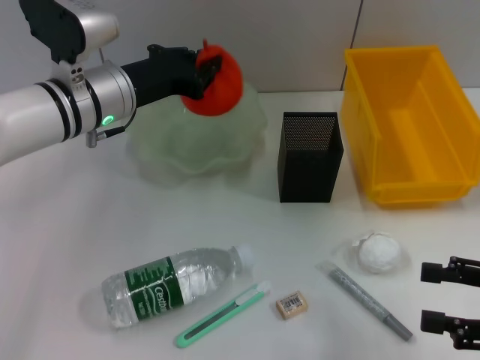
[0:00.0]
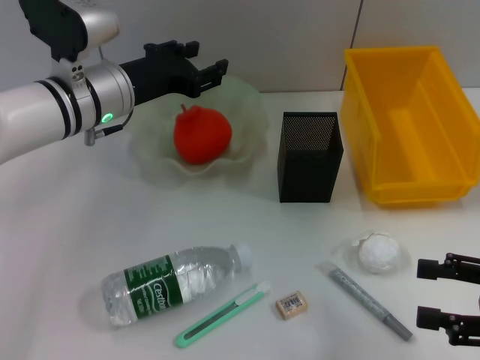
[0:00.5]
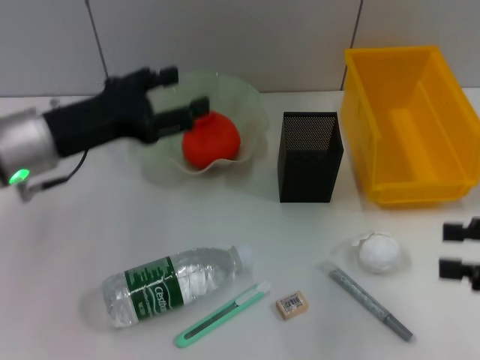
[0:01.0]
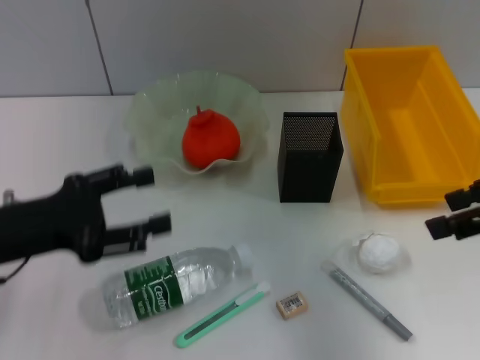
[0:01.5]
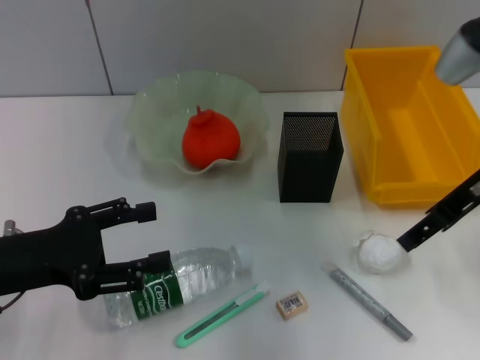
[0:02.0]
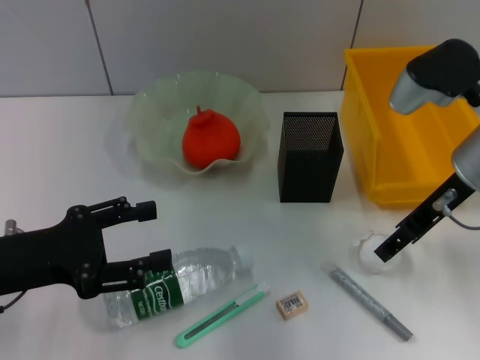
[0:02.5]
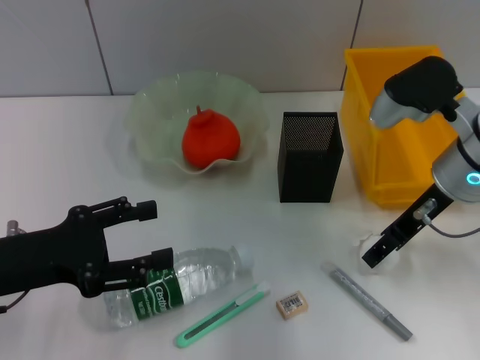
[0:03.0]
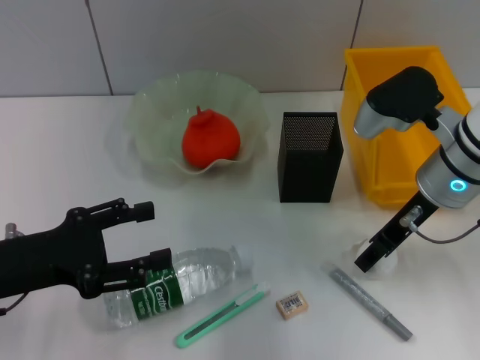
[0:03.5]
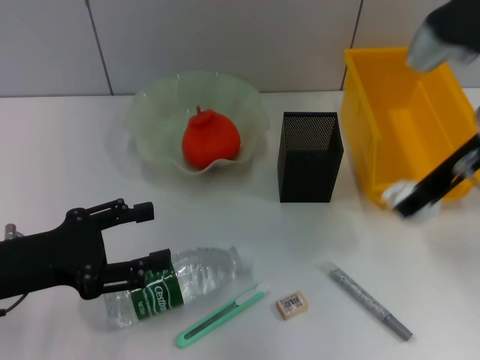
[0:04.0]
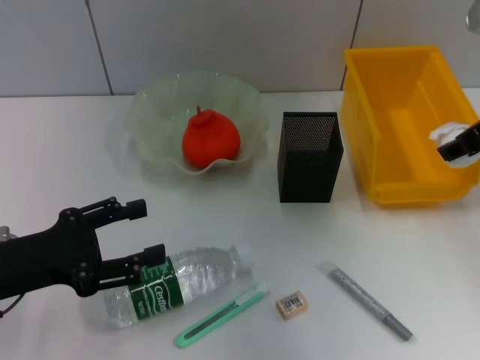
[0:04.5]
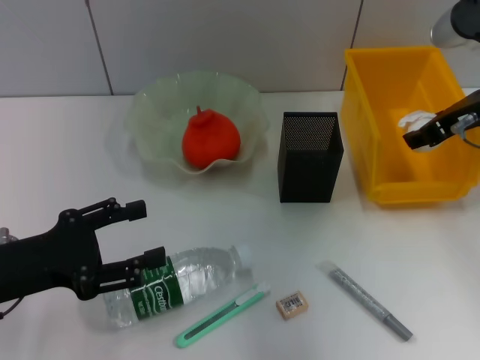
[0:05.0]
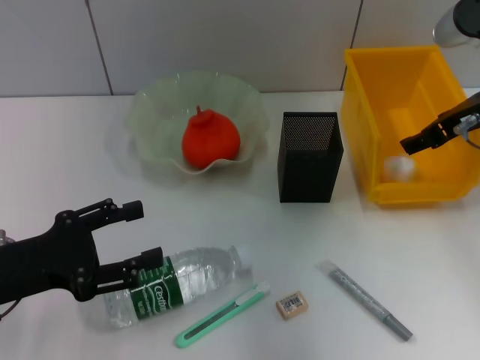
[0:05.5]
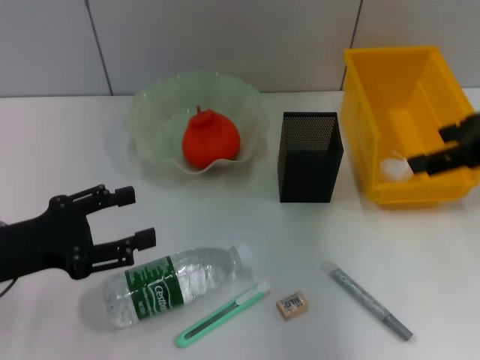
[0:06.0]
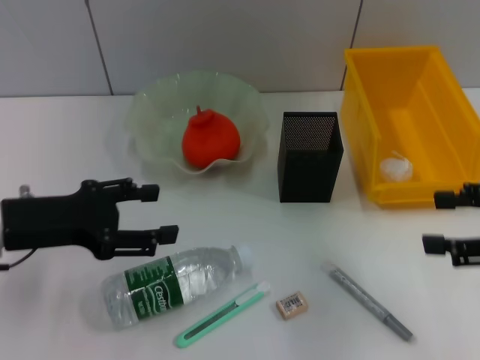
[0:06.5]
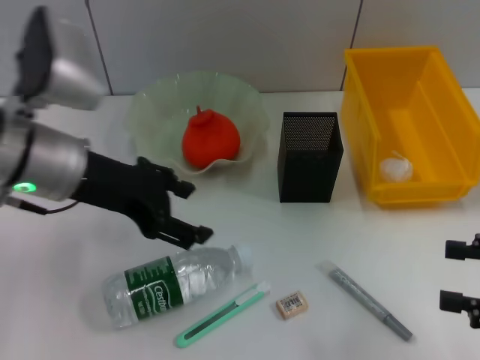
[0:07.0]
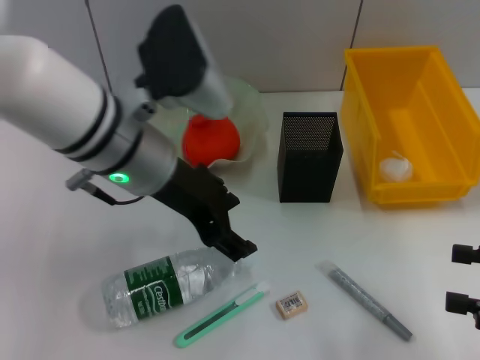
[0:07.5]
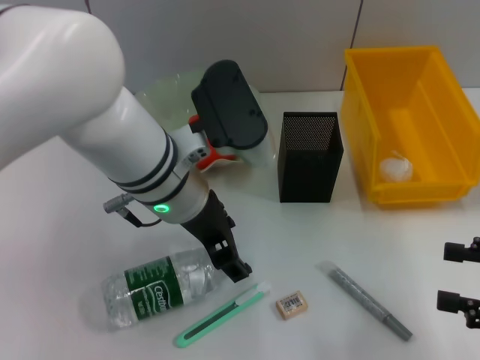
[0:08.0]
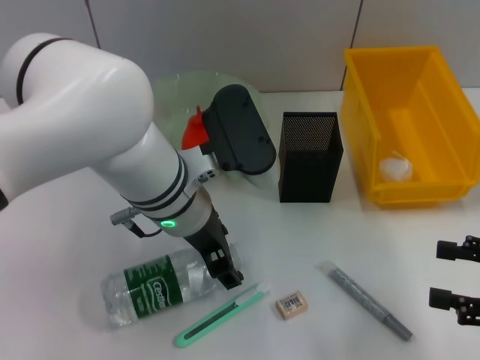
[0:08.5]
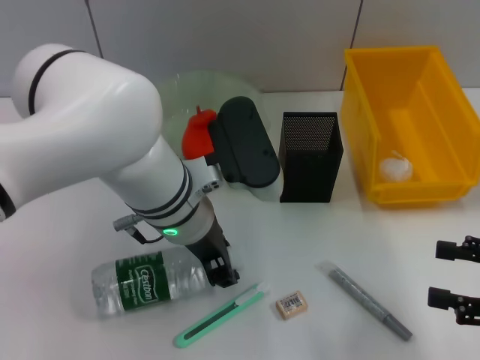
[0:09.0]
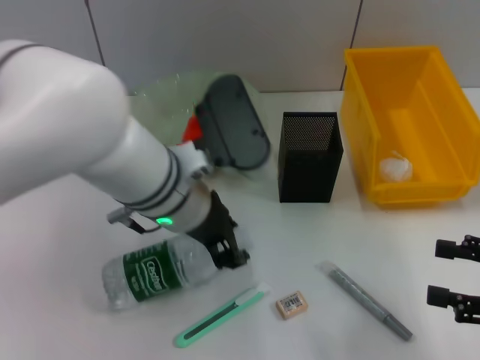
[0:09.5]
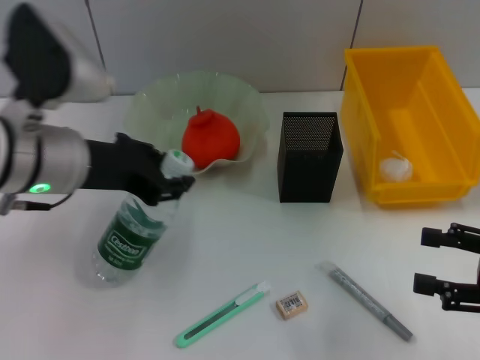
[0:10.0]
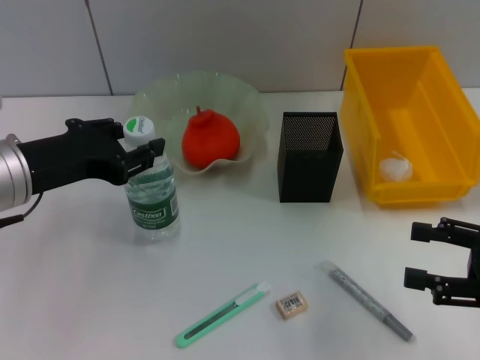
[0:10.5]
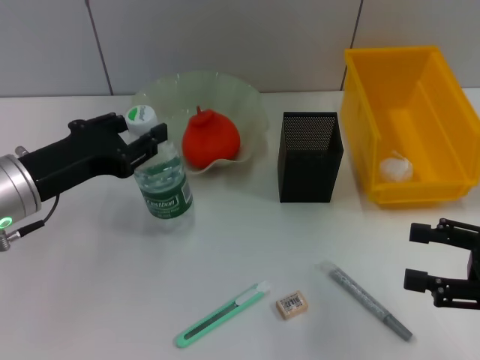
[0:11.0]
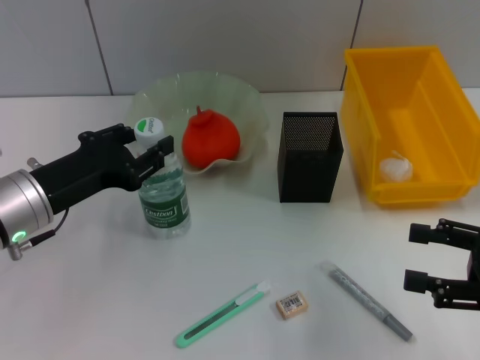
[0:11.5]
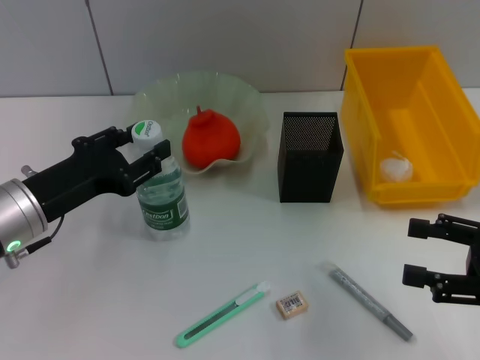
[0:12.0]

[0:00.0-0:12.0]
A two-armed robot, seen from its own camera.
Step, 0:00.5 to 0:03.5: Grab the paper ball with the right hand.
Step, 0:04.0 to 0:05.5: Place the paper ball into the trash can with the right hand.
Step, 0:06.0 to 0:09.0: Grab the water bottle with the left hand.
0:00.0 to 0:02.0: The left gripper moves backward and to the left, roughly 20 cm, and opens up; the right gripper is displaced forward, upward and to the left by some 20 cm.
0:02.0 to 0:04.0: The right gripper travels downward and back again, approximately 5 cm each way.
0:04.0 to 0:06.0: The right gripper moves to the right, some 5 cm, and opens up.
0:06.0 to 0:08.0: The left gripper shifts some 20 cm to the right; the right gripper moves downward, backward and to the right, approximately 20 cm.
0:08.0 to 0:10.0: The left gripper shifts some 10 cm to the left, and closes up.
0:10.0 to 0:12.0: The left gripper goes some 10 cm downward and to the left.

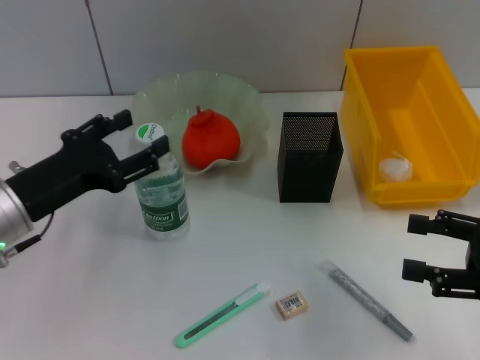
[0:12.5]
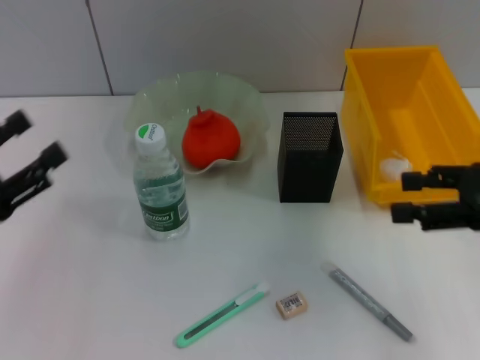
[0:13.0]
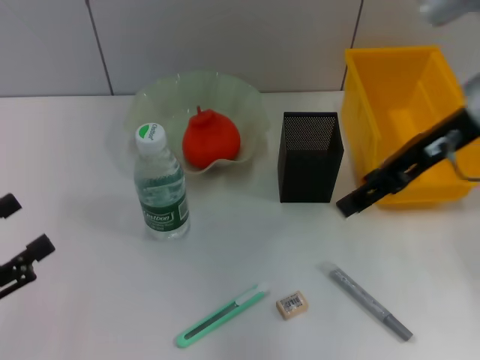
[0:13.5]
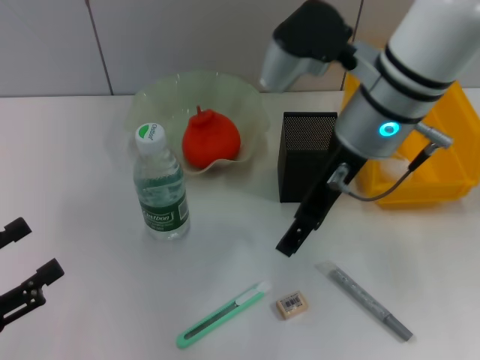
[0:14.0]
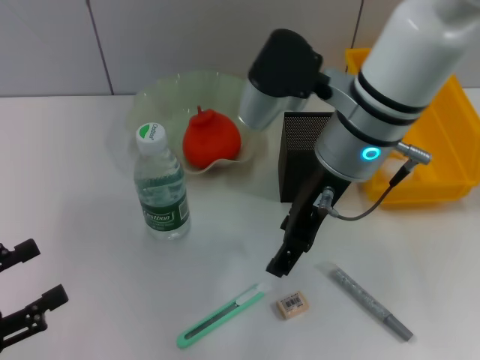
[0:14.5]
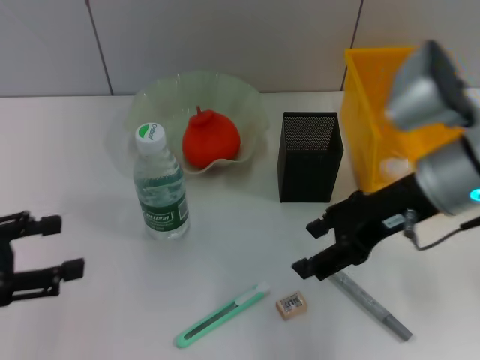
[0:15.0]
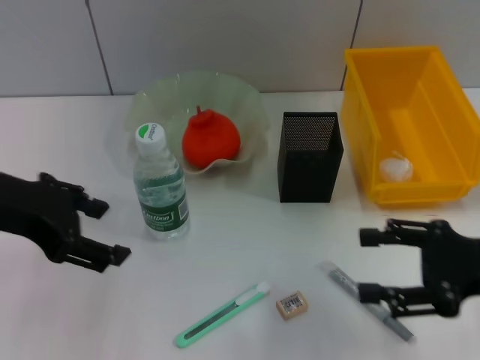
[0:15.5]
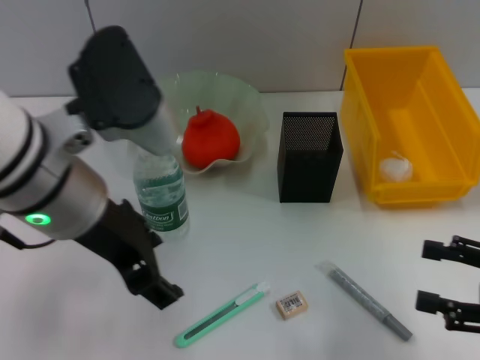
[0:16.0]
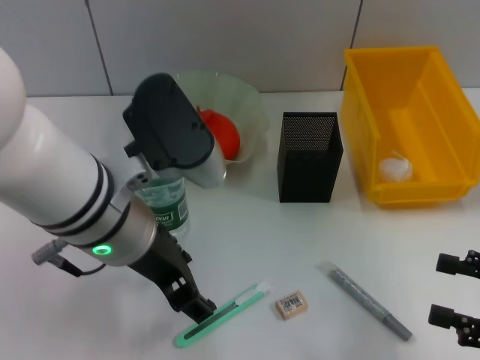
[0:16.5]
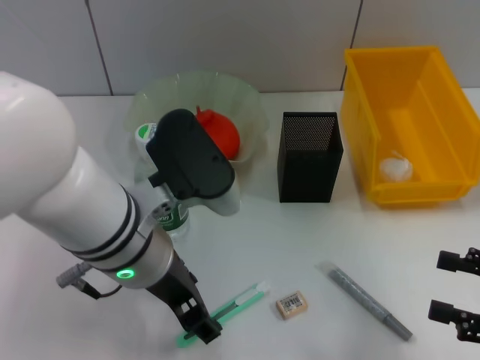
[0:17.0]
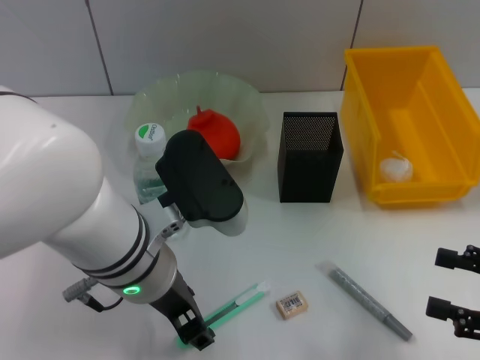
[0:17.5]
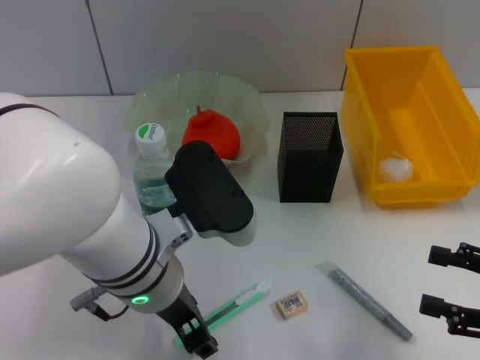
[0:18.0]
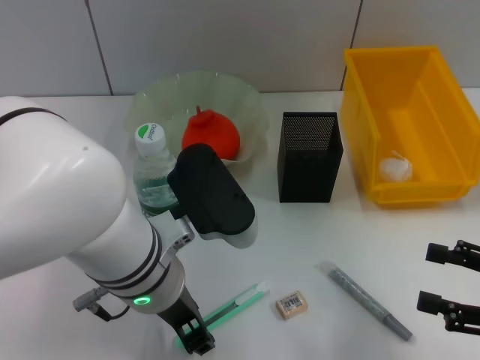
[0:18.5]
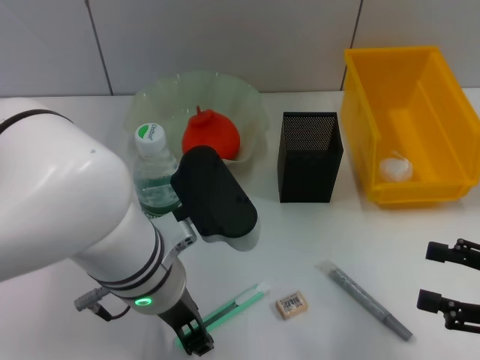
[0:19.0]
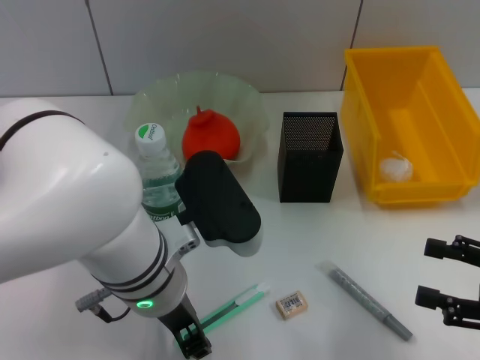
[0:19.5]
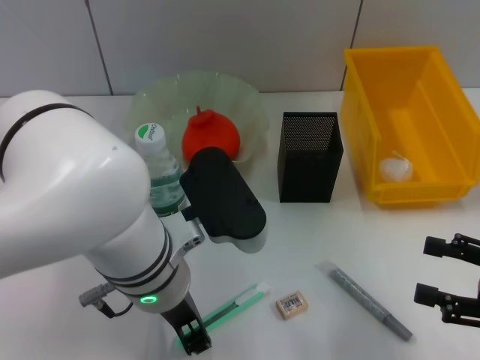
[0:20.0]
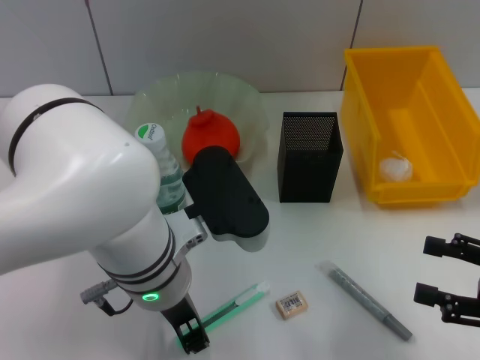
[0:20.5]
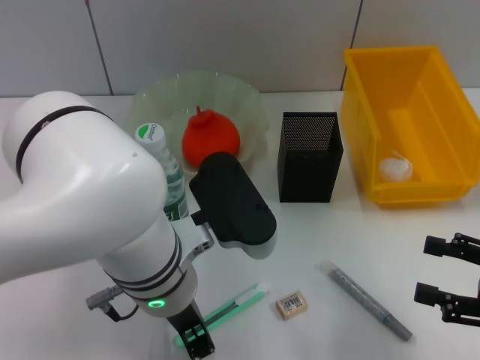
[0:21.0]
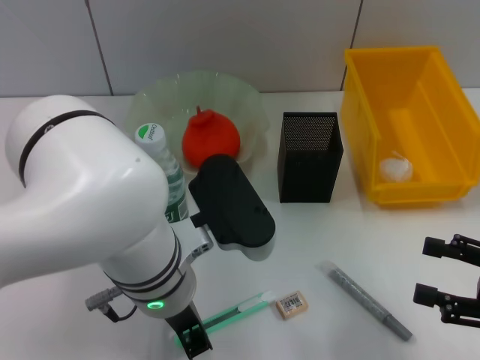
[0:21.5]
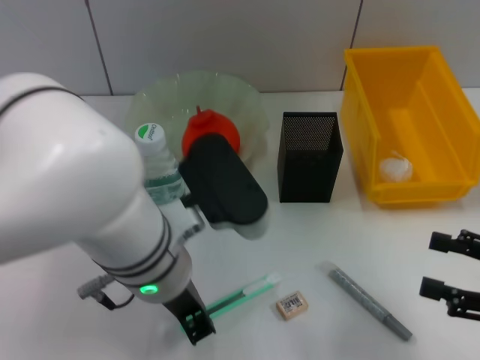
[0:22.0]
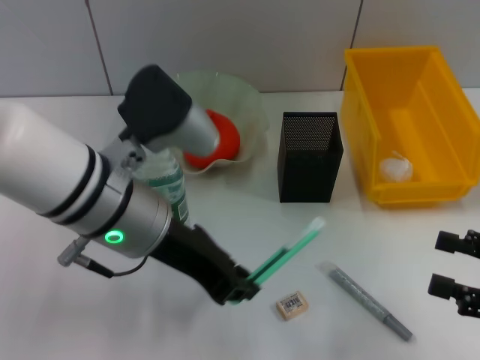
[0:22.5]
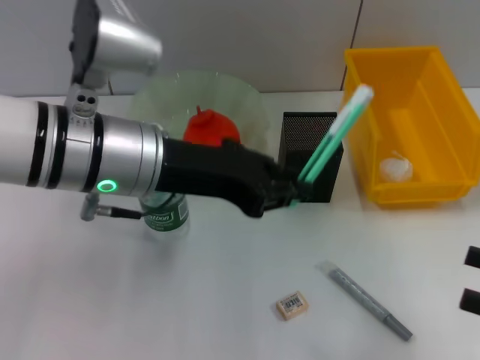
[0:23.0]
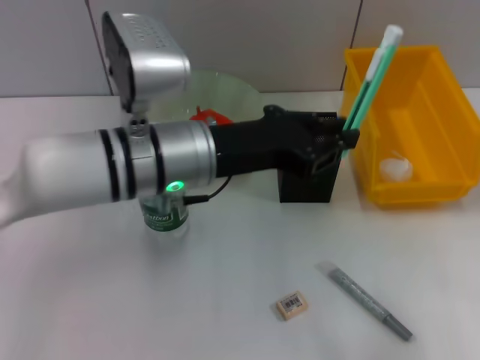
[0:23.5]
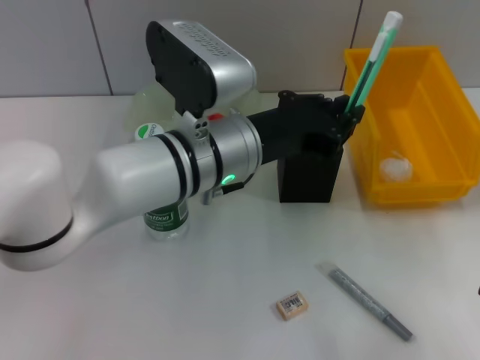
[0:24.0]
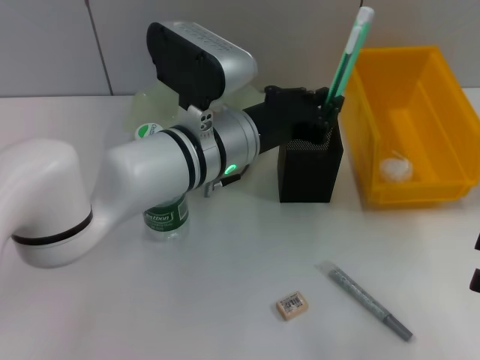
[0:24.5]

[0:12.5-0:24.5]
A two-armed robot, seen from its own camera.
Step, 0:12.5 to 0:21.5: Grab the blue utility knife with the left hand.
0:12.5 to 0:14.5: The right gripper travels to the left and forward by some 25 cm. The left gripper heads backward and to the left, covering about 15 cm.
0:14.5 to 0:16.5: The right gripper travels to the right, backward and downward by about 35 cm; the left gripper travels to the right, forward and upward by approximately 30 cm.
0:16.5 to 0:18.5: The left gripper shifts about 5 cm downward, and closes.
0:18.5 to 0:20.5: The two grippers keep their place.
0:20.5 to 0:22.5: The left gripper ends up about 5 cm from where it was.
0:22.5 to 0:24.5: The left gripper is displaced to the right and forward by roughly 10 cm.

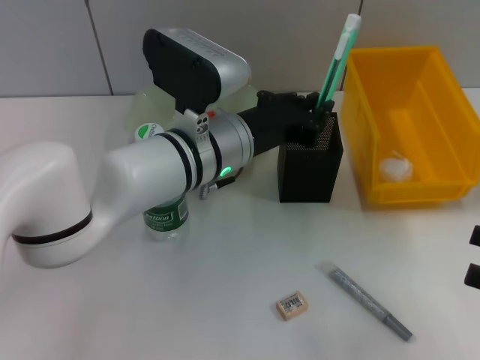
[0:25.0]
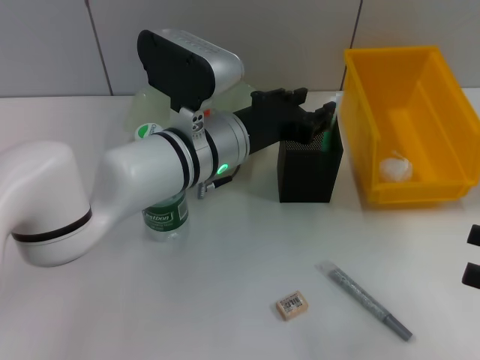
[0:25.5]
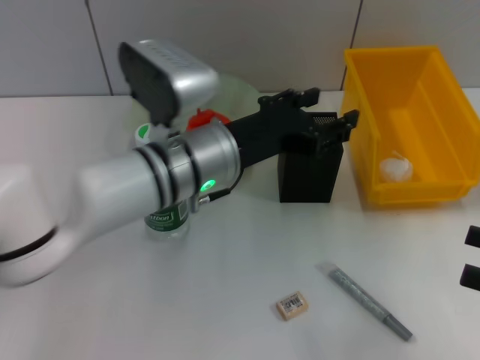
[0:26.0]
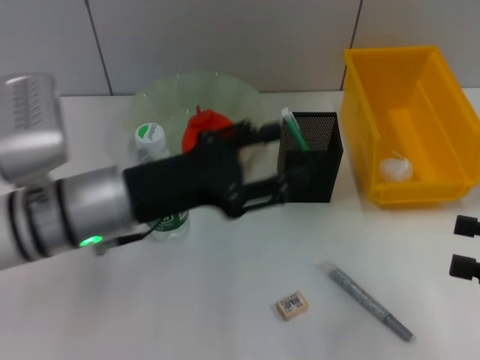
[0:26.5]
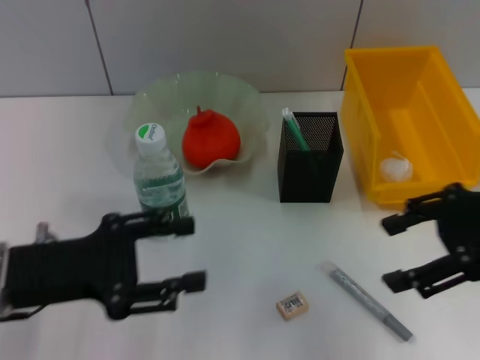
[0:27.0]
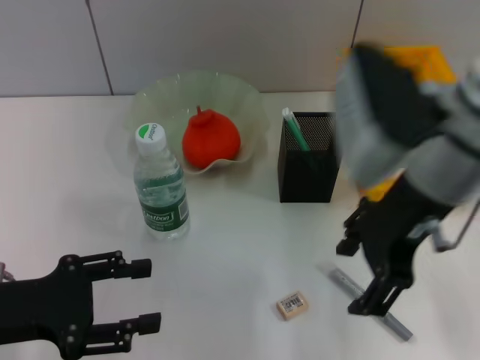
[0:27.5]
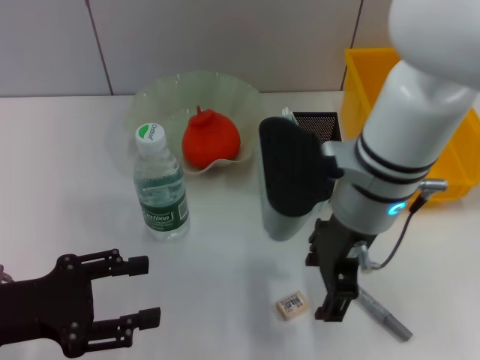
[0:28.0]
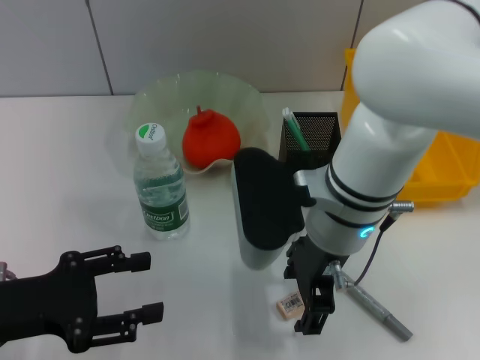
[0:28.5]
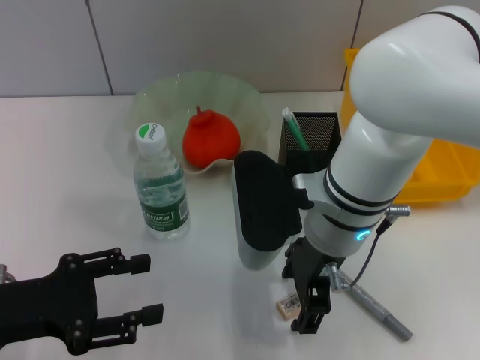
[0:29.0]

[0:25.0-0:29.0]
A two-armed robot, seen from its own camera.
0:25.0 to 0:27.0: The right gripper goes about 20 cm upward, to the left and forward. Meanwhile the left gripper goes about 25 cm to the left and backward, and opens.
0:27.0 to 0:29.0: The right gripper heads to the left and downward, covering roughly 20 cm.
